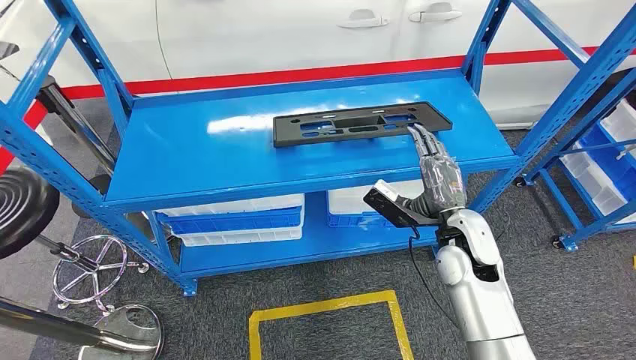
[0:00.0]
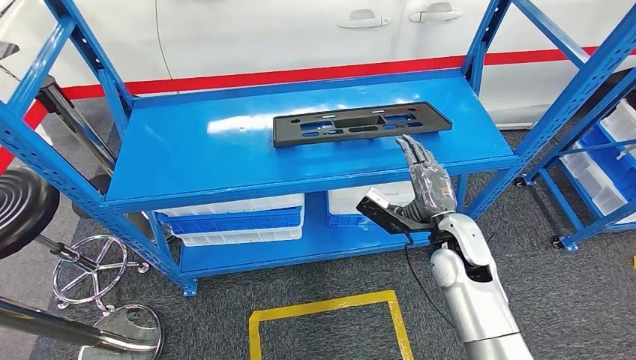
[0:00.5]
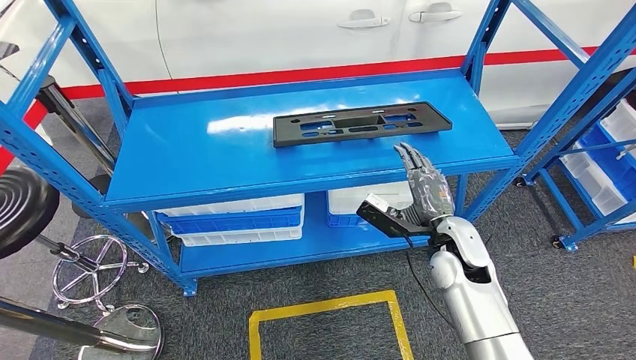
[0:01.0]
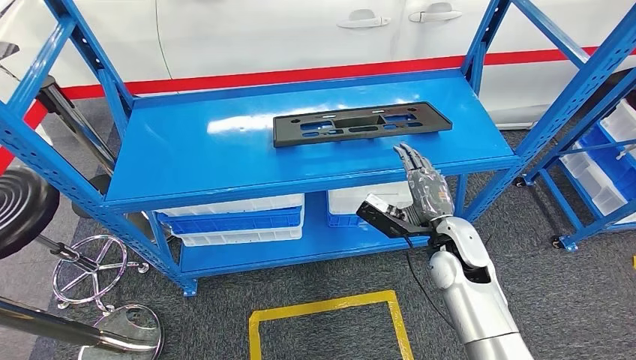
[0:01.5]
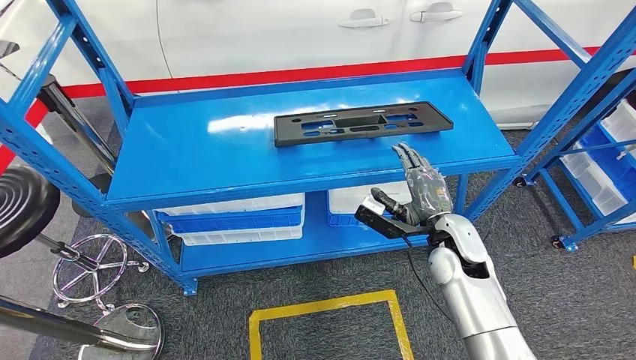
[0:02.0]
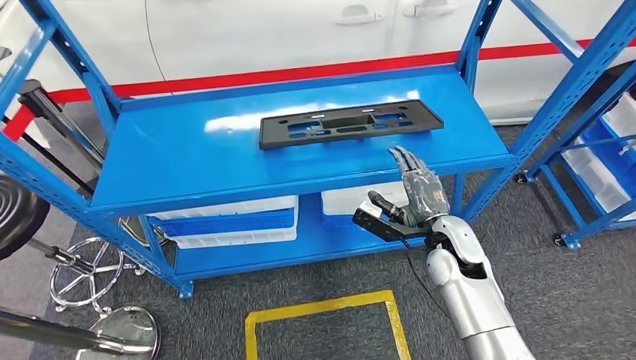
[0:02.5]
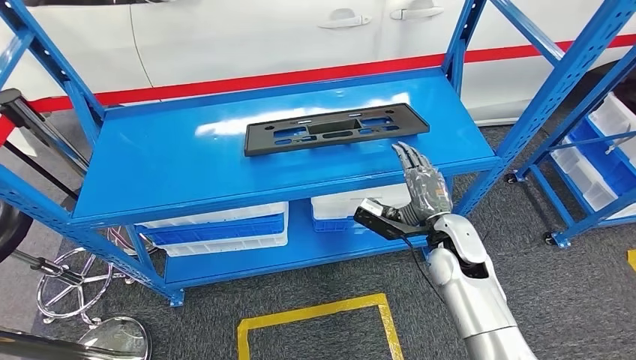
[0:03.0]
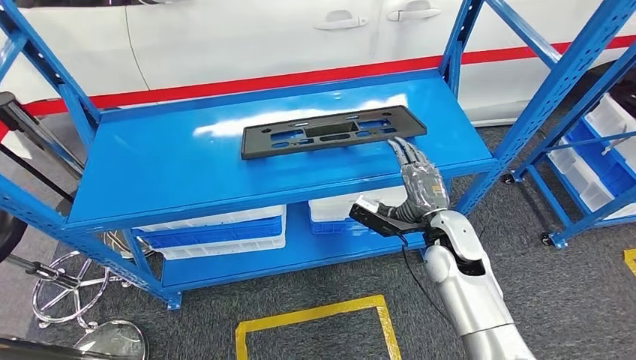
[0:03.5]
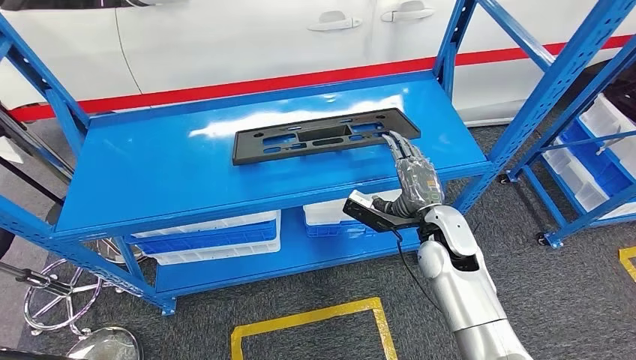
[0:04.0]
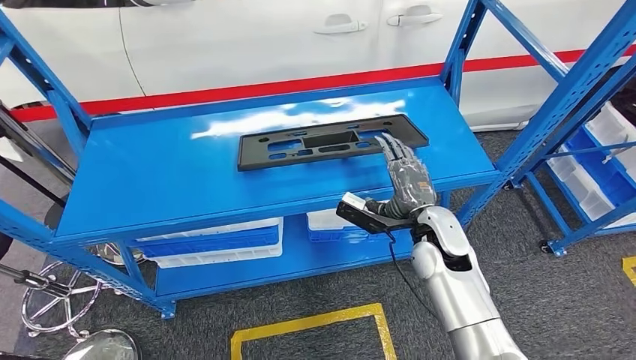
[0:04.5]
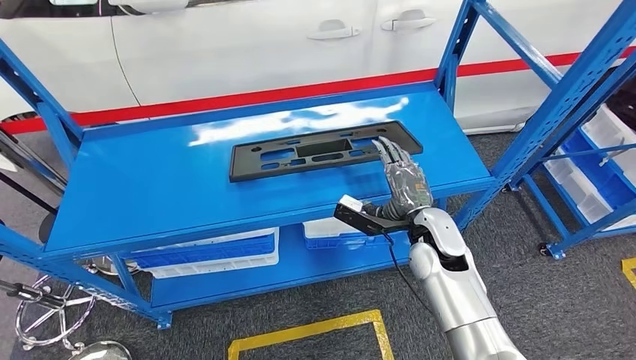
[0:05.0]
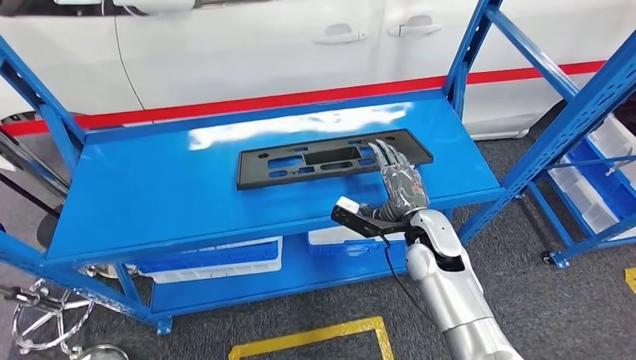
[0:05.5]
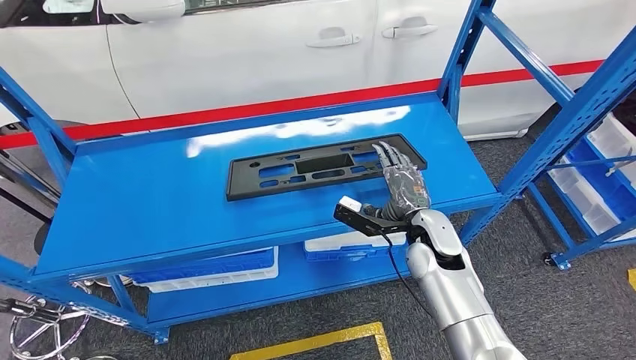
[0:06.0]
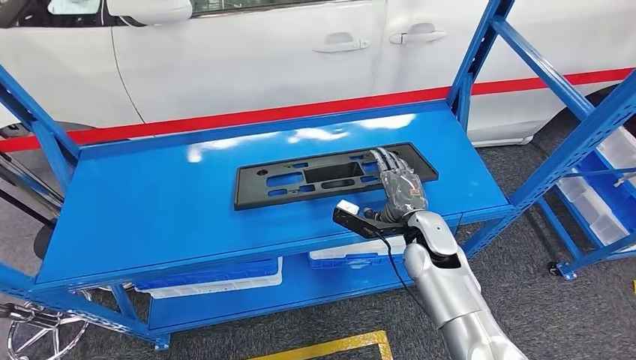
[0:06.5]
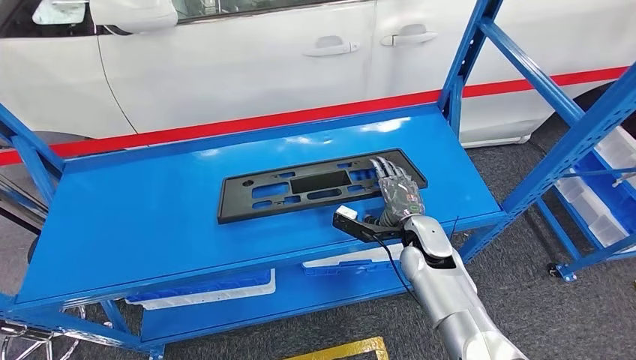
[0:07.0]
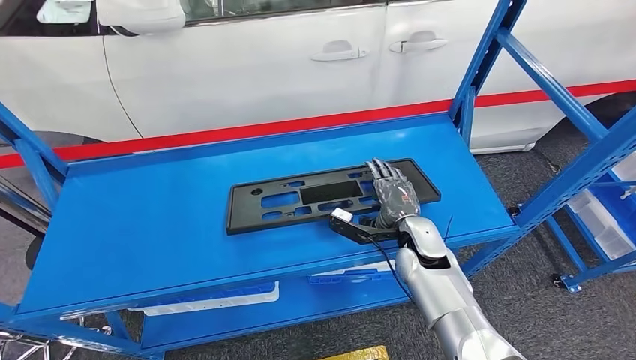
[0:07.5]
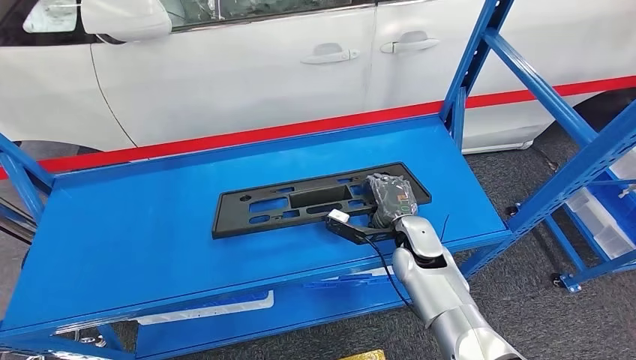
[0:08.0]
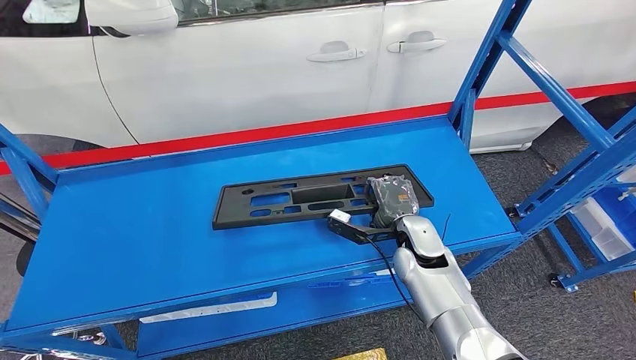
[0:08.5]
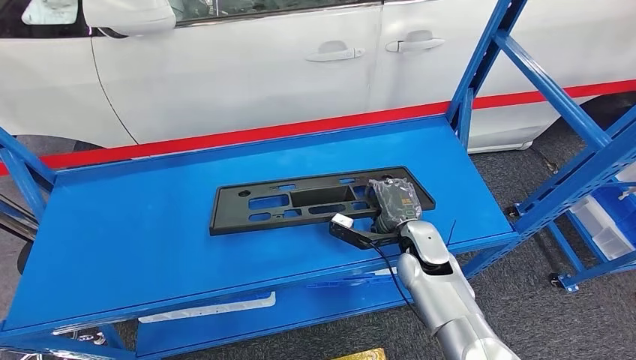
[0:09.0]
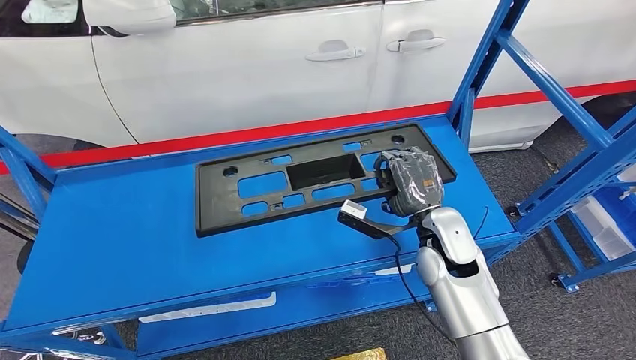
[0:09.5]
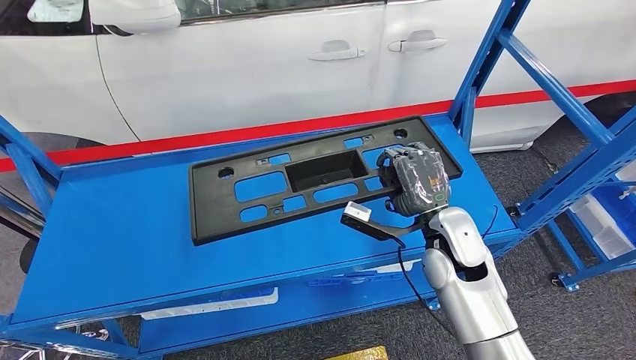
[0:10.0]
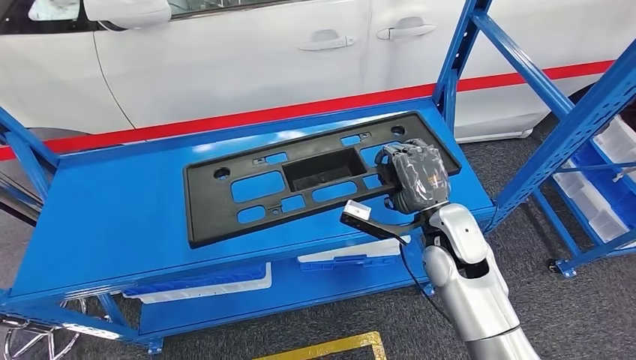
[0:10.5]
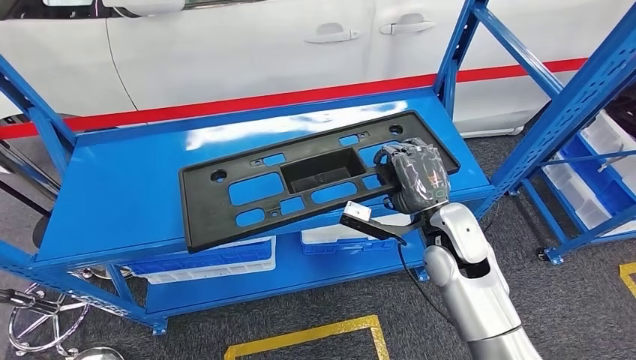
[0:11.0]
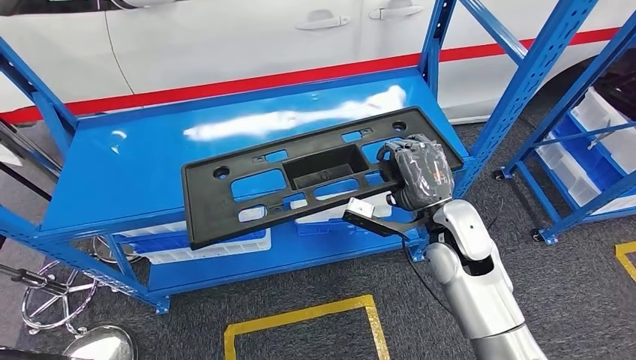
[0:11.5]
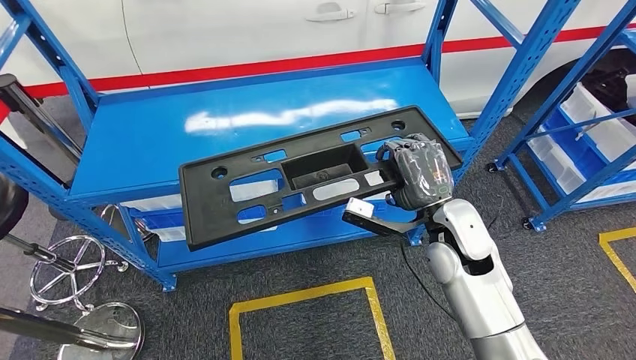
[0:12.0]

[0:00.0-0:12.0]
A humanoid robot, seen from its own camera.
Step, 0:00.0 to 0:11.5: Pick up the large material from the shelf.

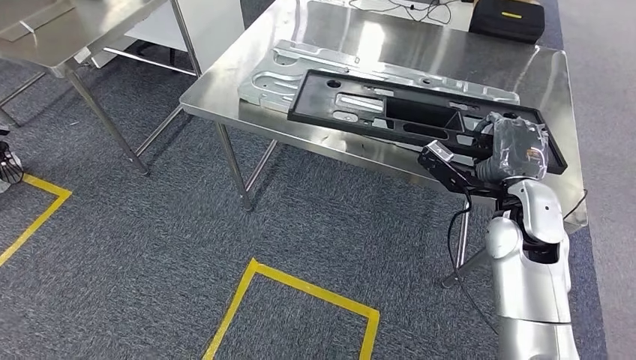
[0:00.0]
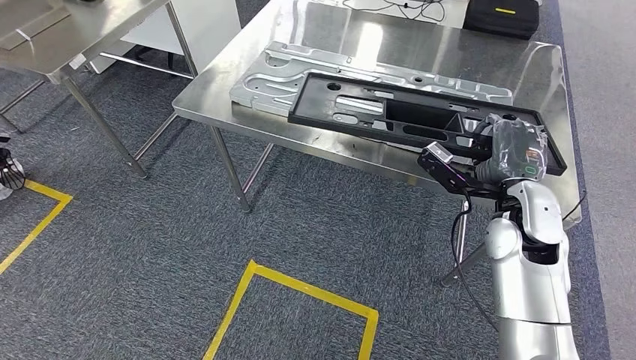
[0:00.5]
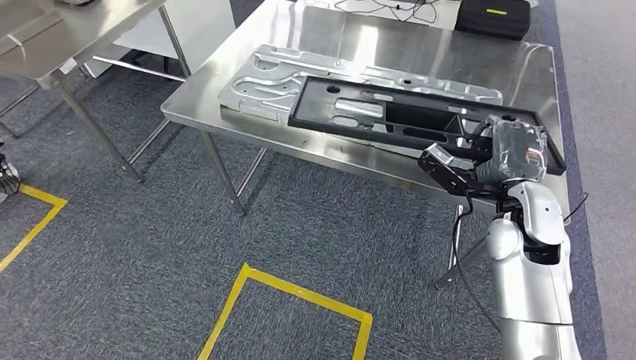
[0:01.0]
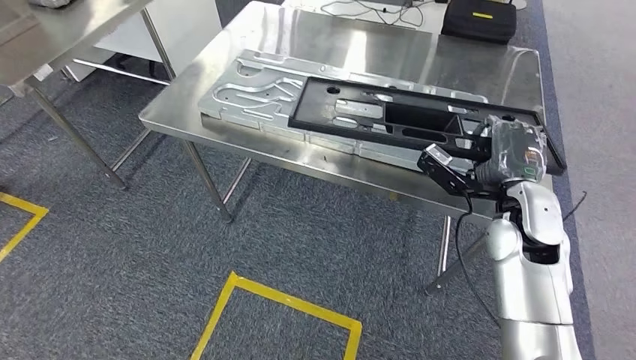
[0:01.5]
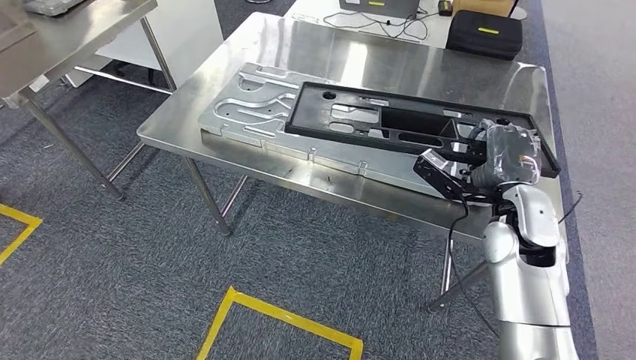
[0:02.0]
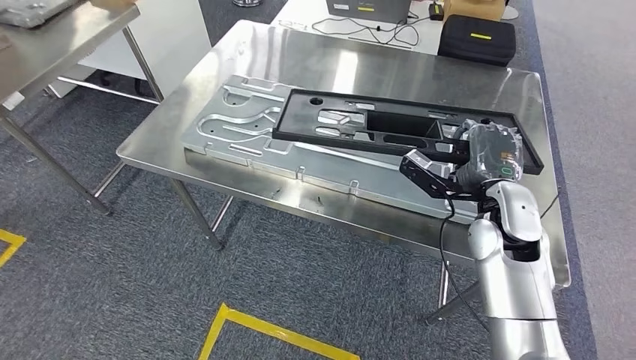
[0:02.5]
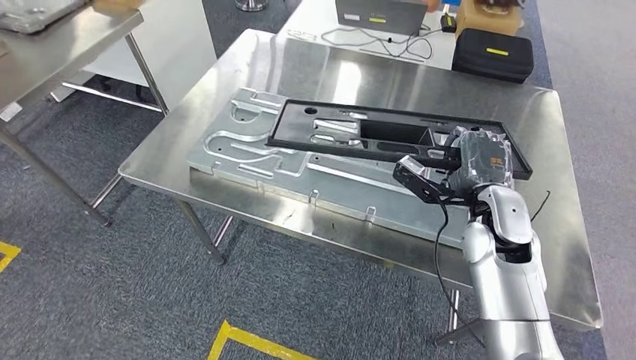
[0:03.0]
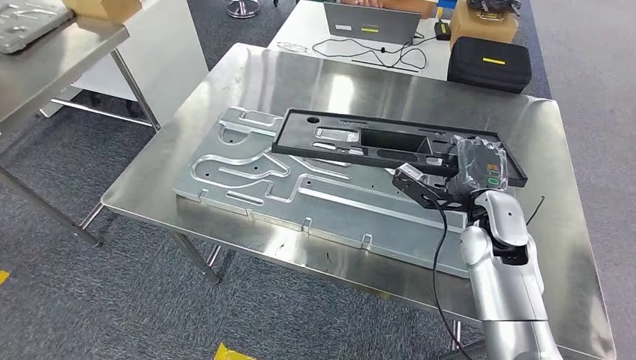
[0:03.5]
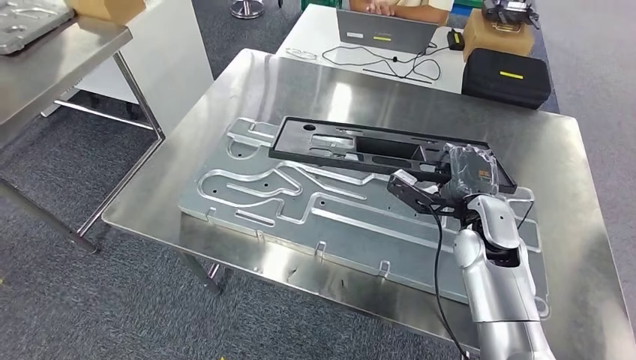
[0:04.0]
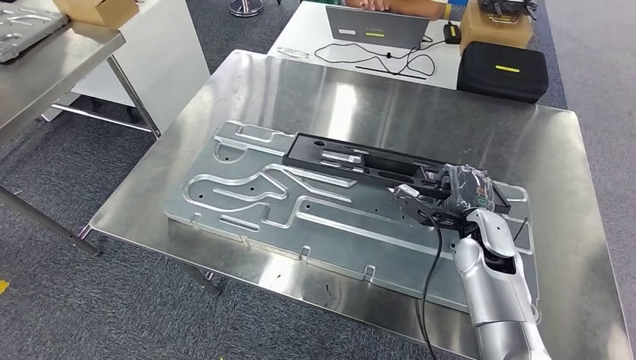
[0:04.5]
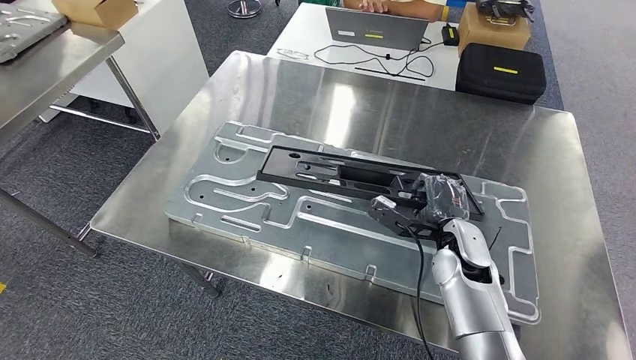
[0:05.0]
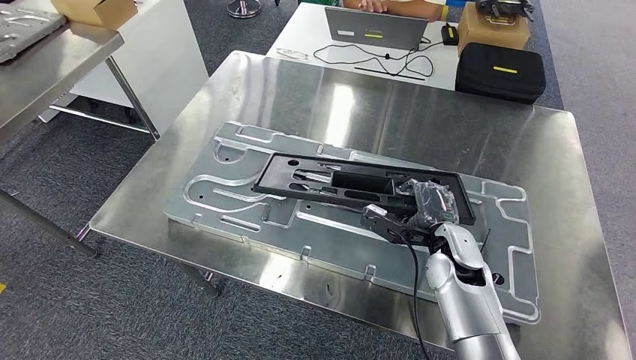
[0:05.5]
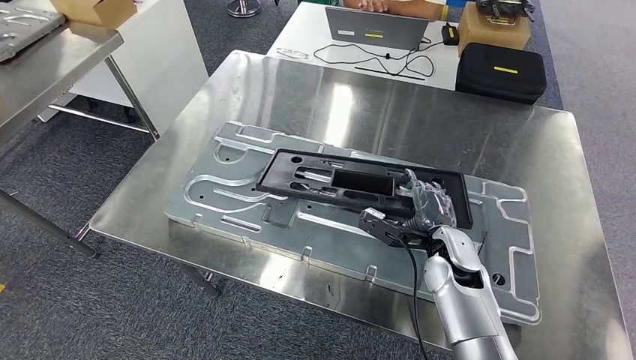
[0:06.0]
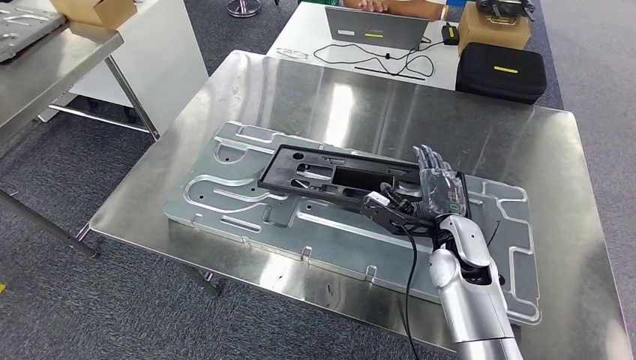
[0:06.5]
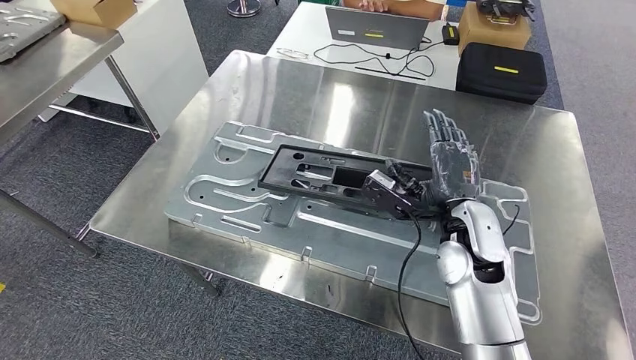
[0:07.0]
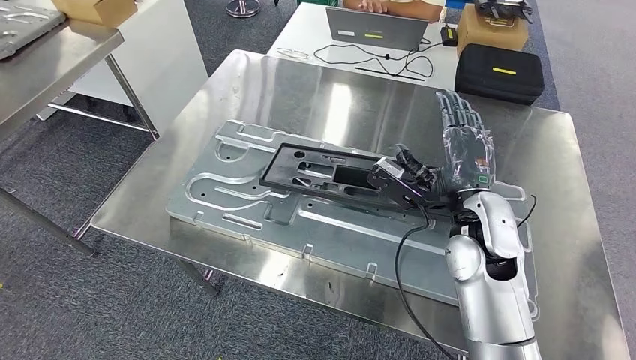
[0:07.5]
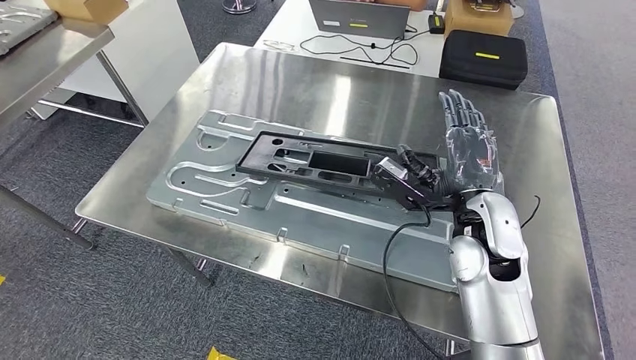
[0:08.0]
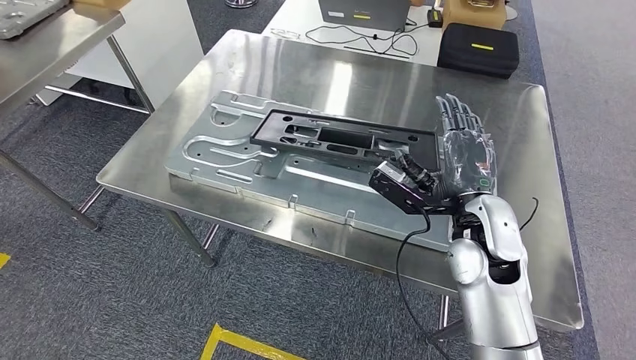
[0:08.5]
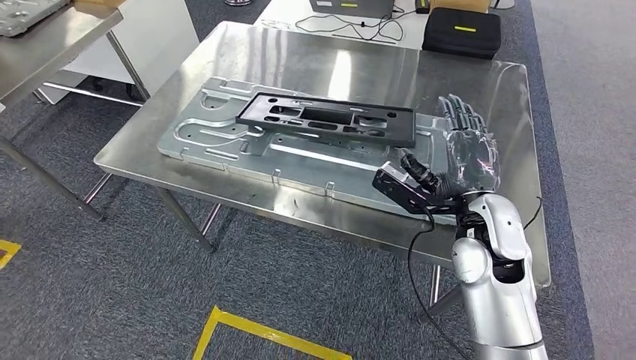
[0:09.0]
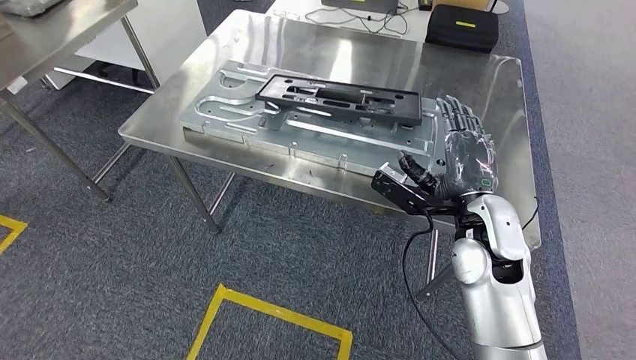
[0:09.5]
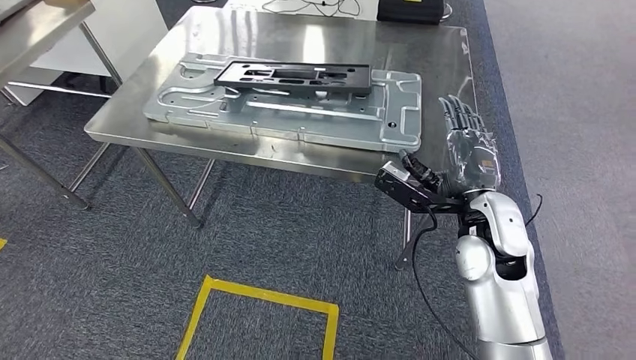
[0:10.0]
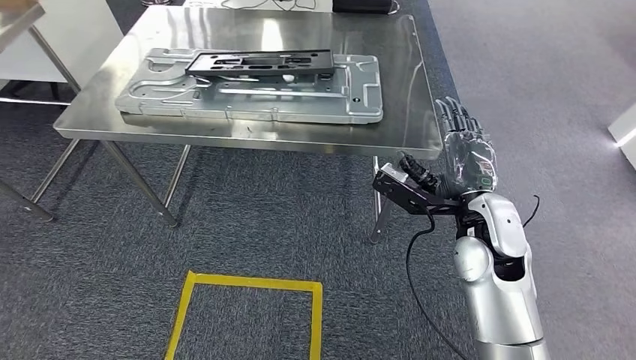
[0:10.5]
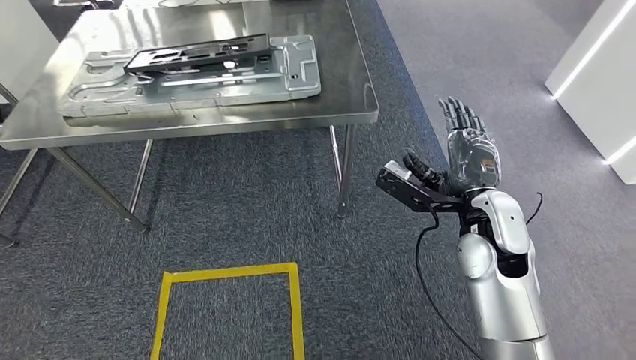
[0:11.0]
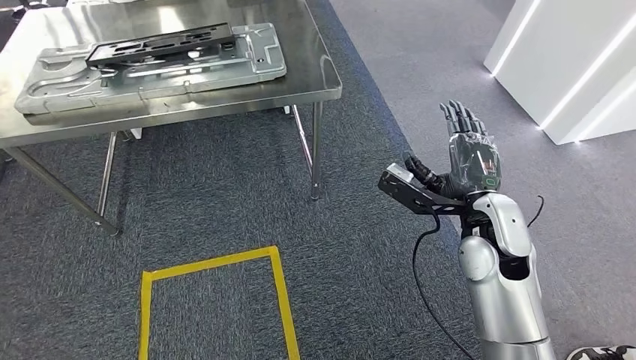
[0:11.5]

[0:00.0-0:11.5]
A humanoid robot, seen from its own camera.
Step, 0:00.5 to 0:11.0: Insert the large material into the corresponding slot on the workbench.
0:06.0 to 0:07.5: The right hand travels upward by approximately 10 cm.
